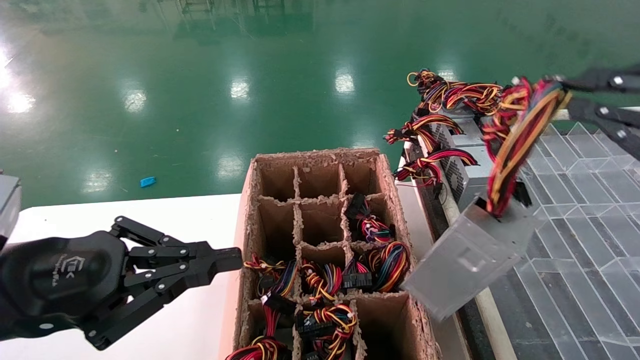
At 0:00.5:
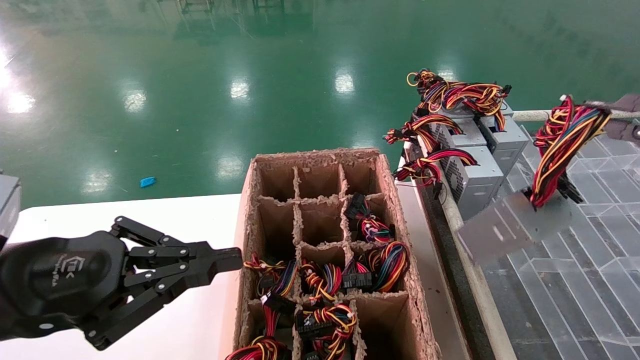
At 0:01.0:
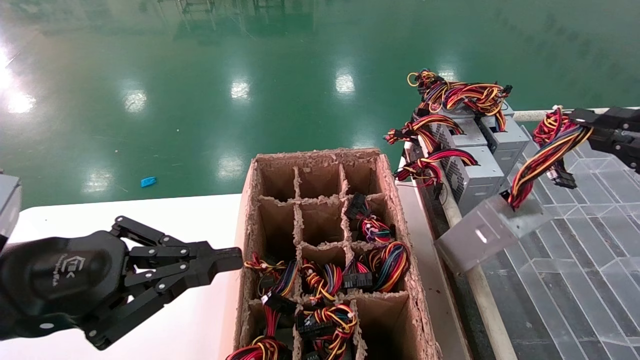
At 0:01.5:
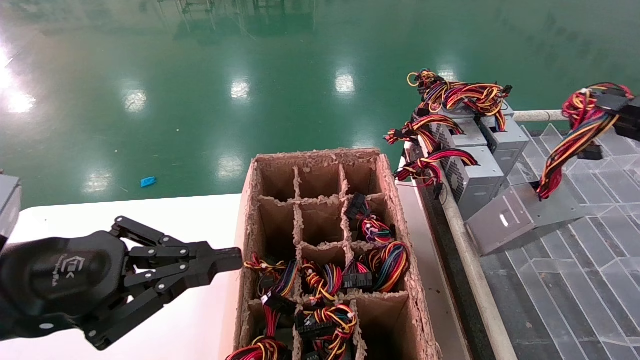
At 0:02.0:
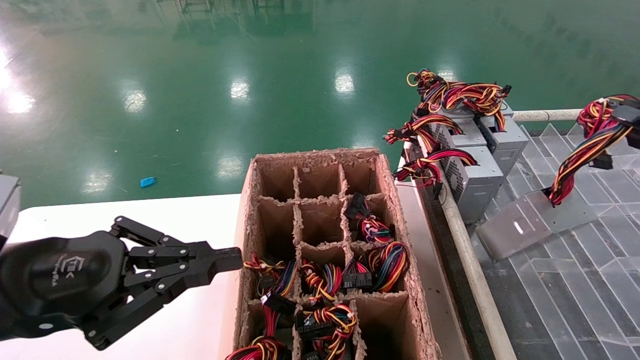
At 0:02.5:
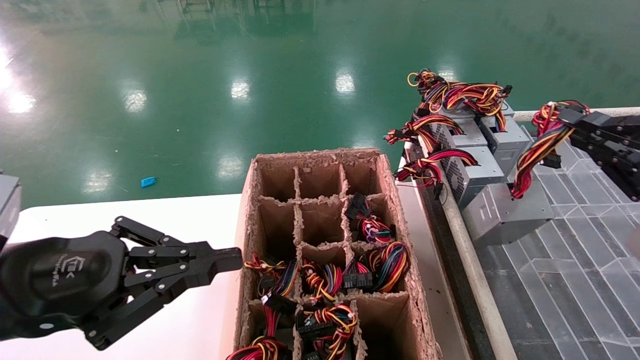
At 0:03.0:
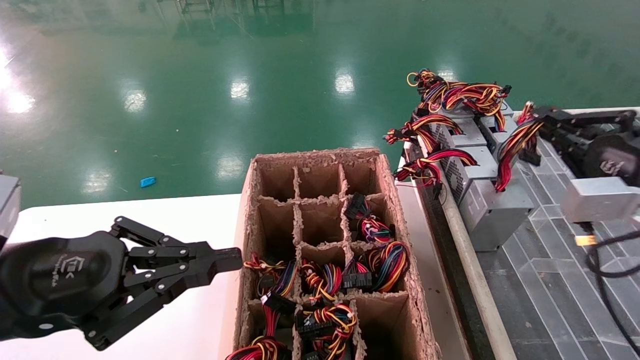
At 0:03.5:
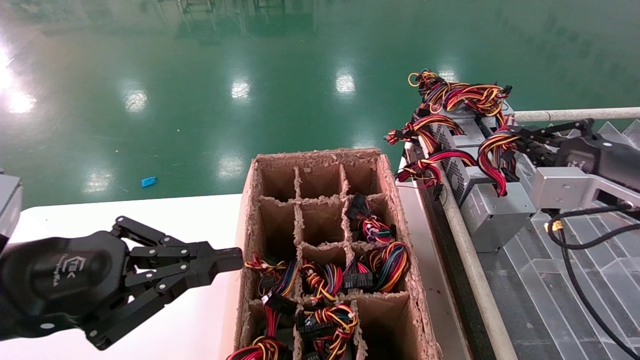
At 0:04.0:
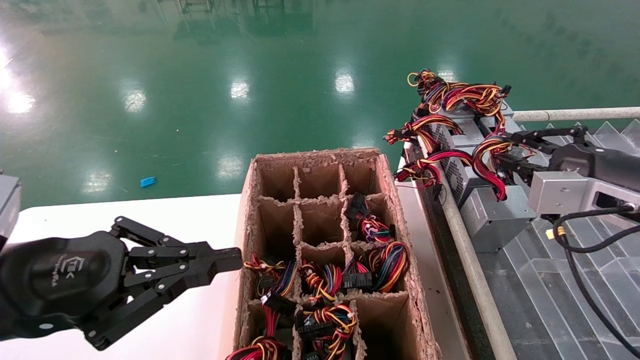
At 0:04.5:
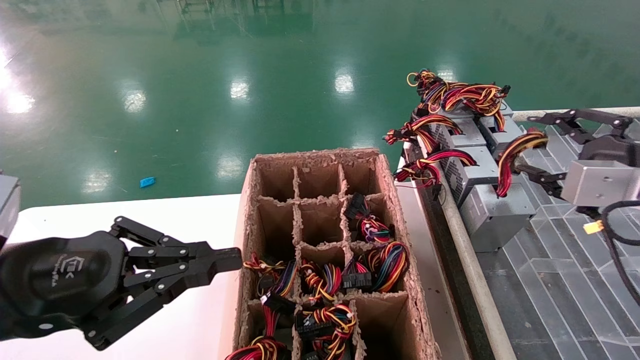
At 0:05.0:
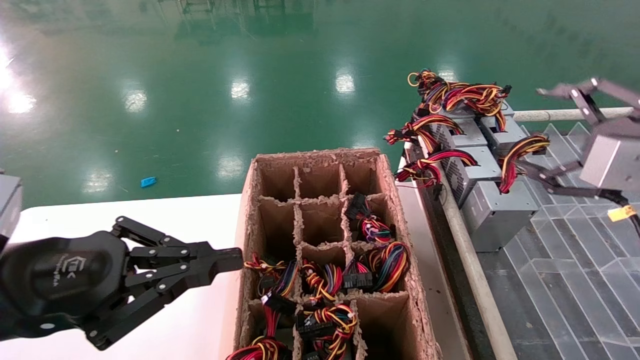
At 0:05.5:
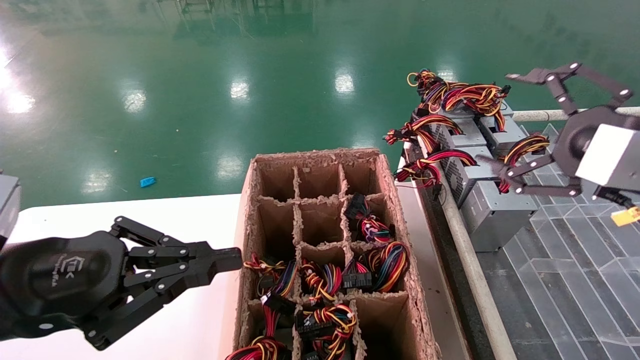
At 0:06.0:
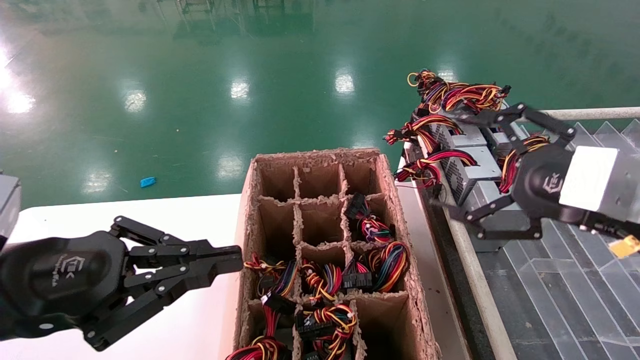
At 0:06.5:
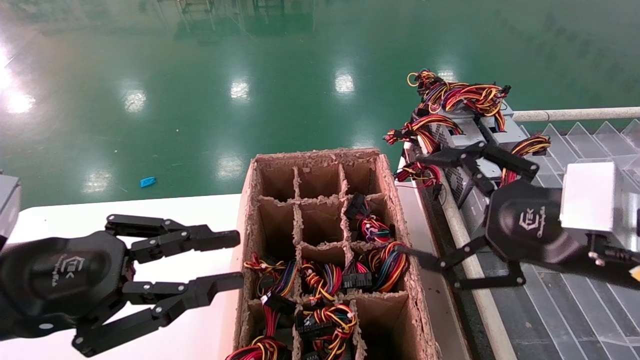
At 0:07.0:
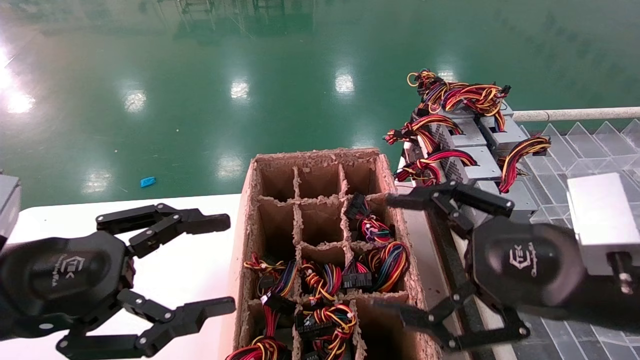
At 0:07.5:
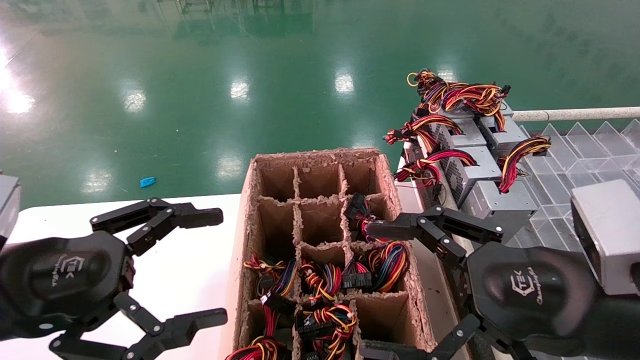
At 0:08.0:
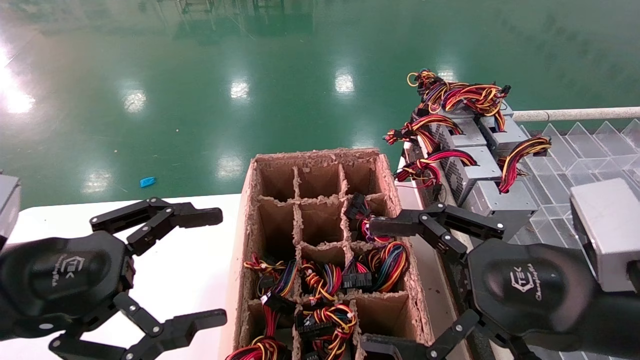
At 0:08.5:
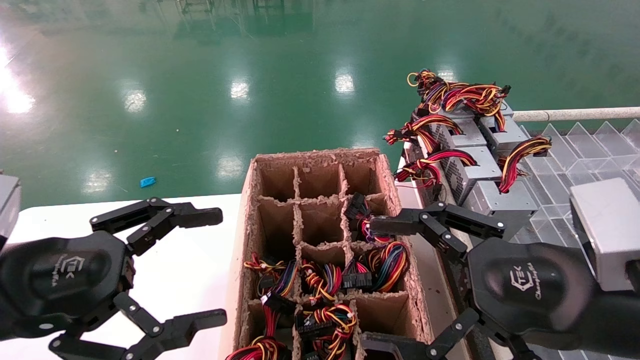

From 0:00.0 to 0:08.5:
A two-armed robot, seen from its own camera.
Step, from 0:00.0 to 0:04.5: Place the main unit power supply in the designated area.
From 0:00.0 to 0:02.0: The right gripper is displaced downward and to the right by roughly 10 cm.
From 0:02.0 to 0:04.0: The right gripper is displaced forward and to the left by approximately 15 cm.
From 0:04.0 to 0:06.5: The right gripper heads to the left and backward, covering approximately 15 cm, and opens.
From 0:06.5 to 0:08.5: The left gripper opens.

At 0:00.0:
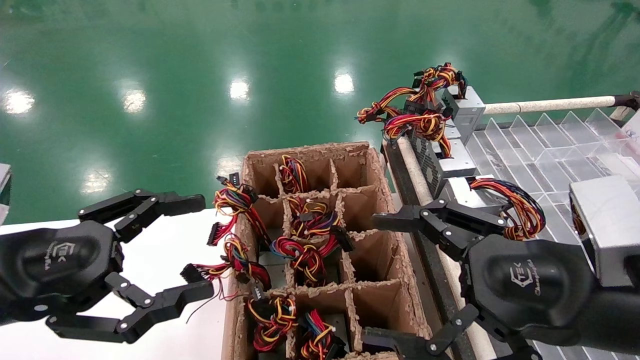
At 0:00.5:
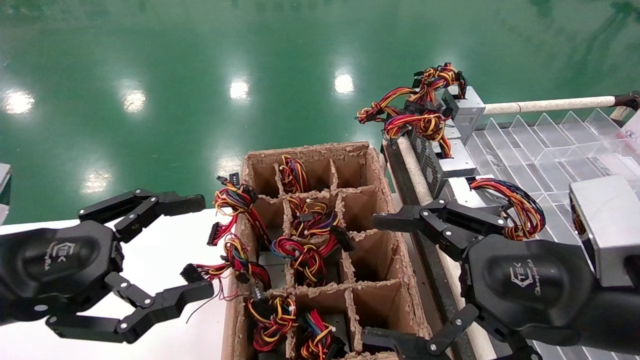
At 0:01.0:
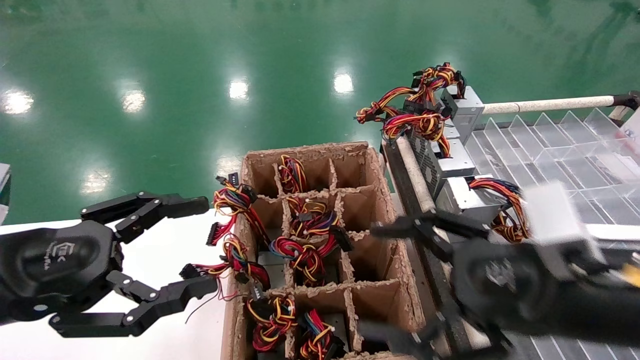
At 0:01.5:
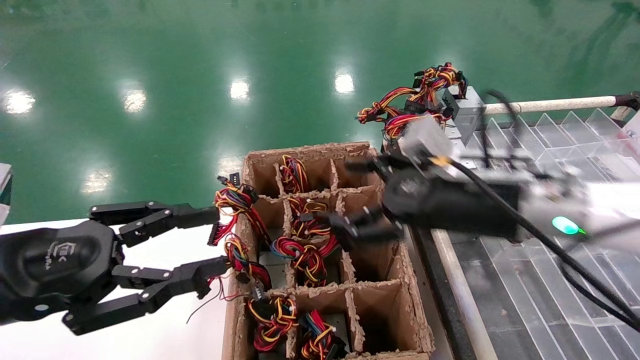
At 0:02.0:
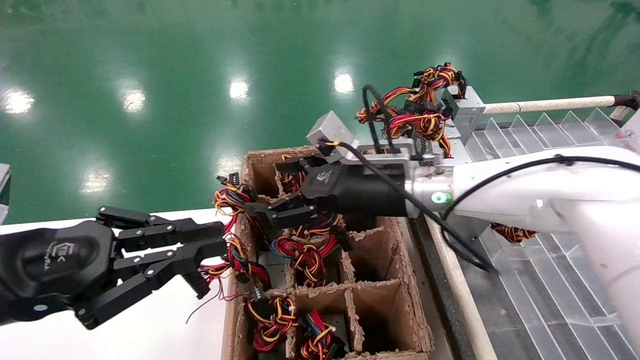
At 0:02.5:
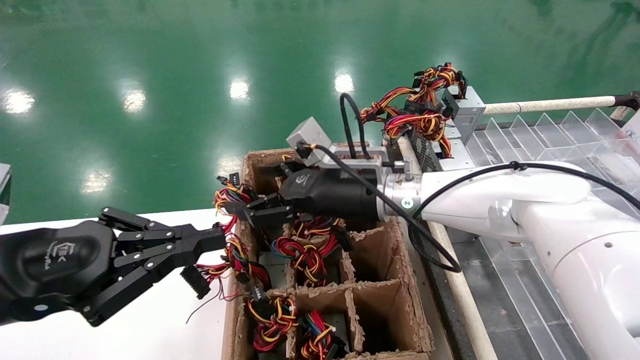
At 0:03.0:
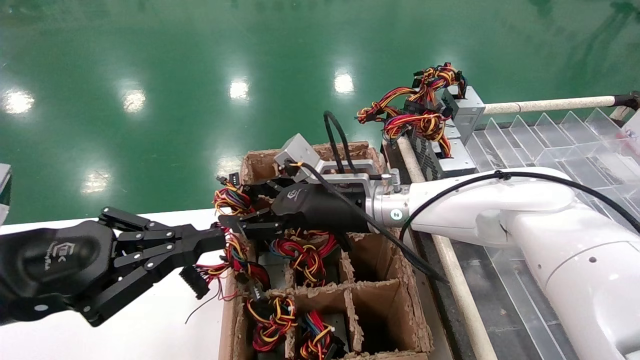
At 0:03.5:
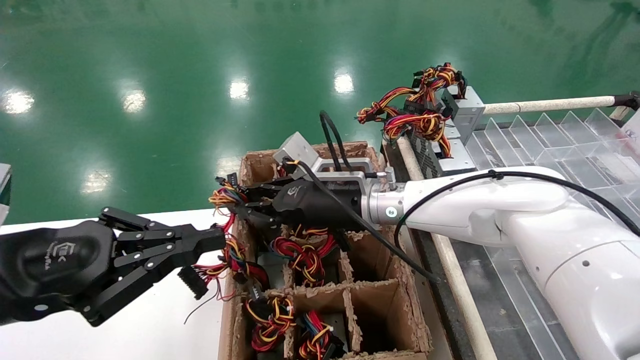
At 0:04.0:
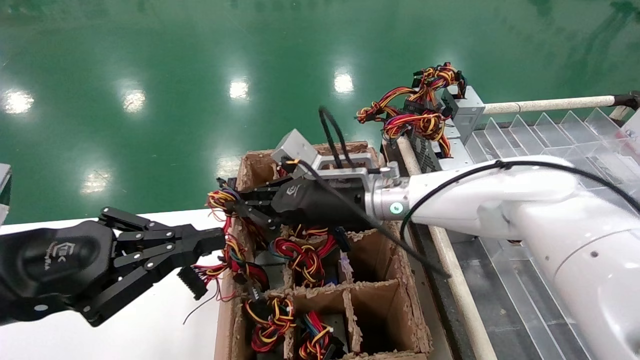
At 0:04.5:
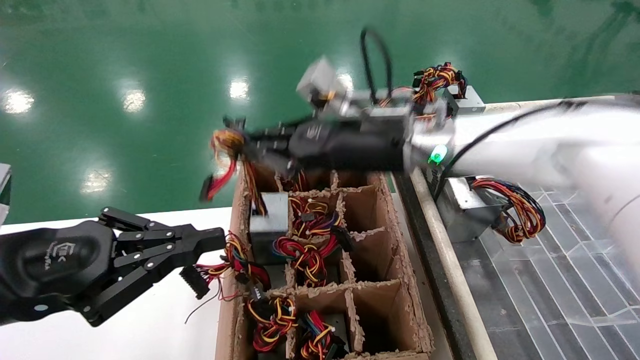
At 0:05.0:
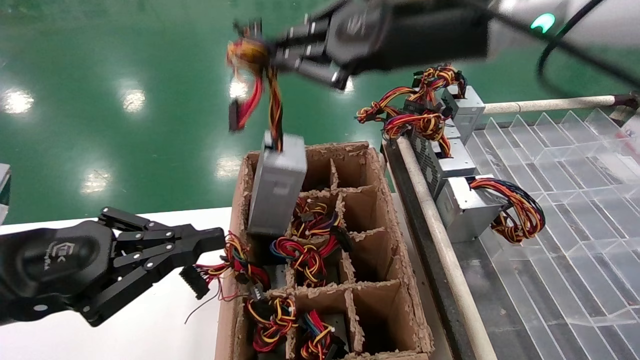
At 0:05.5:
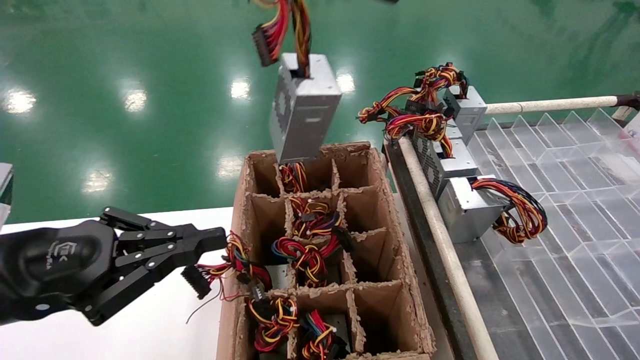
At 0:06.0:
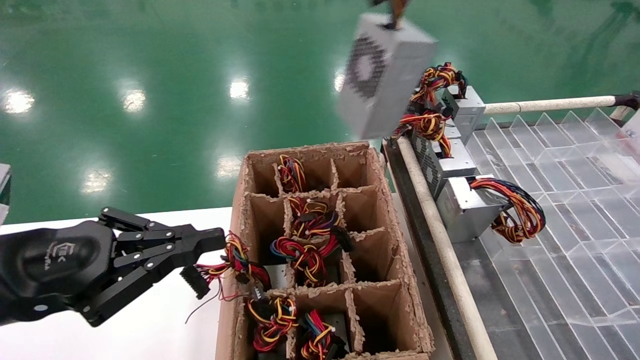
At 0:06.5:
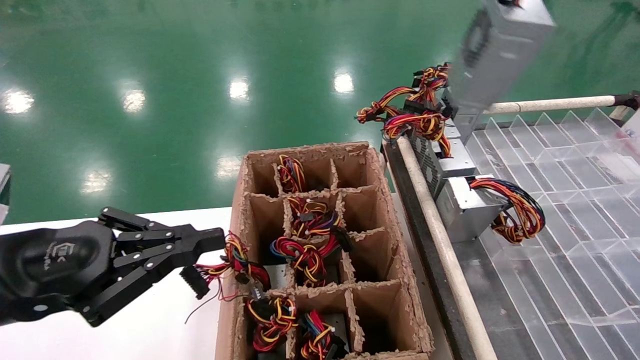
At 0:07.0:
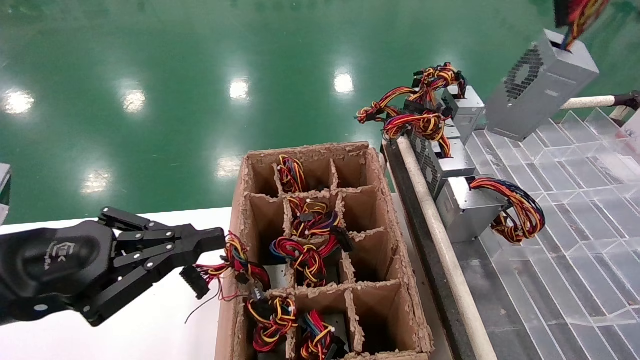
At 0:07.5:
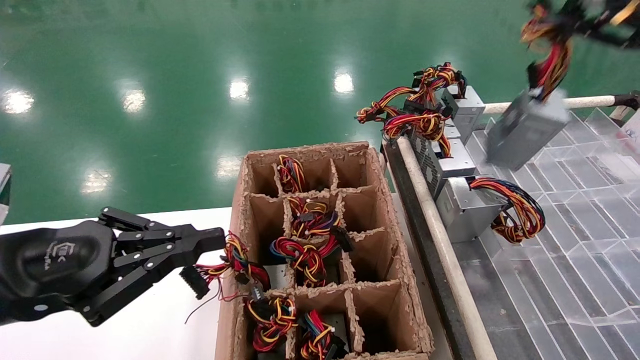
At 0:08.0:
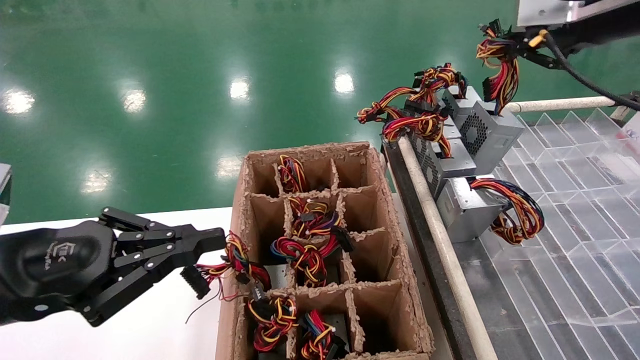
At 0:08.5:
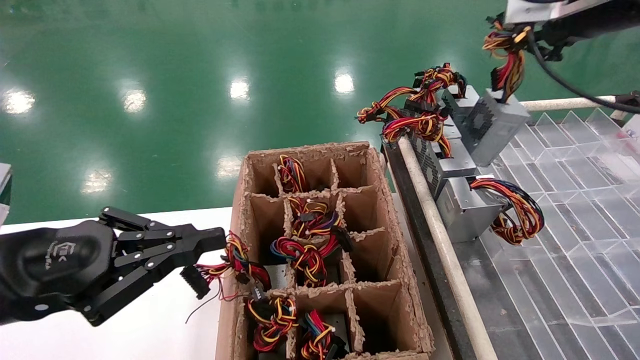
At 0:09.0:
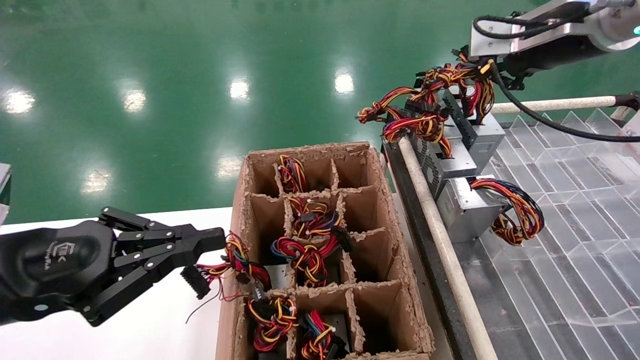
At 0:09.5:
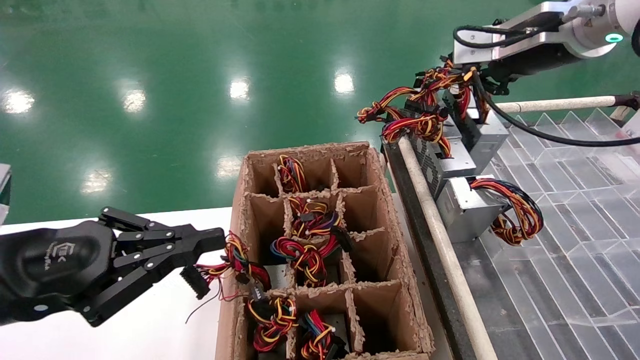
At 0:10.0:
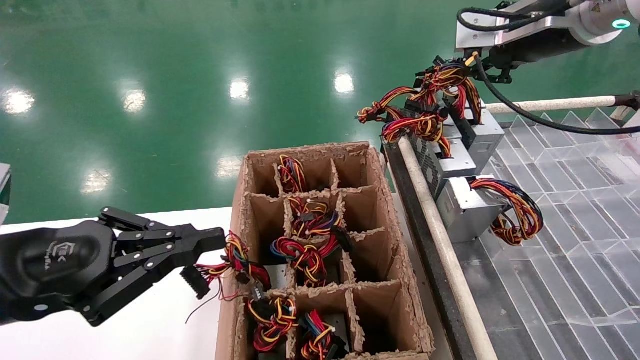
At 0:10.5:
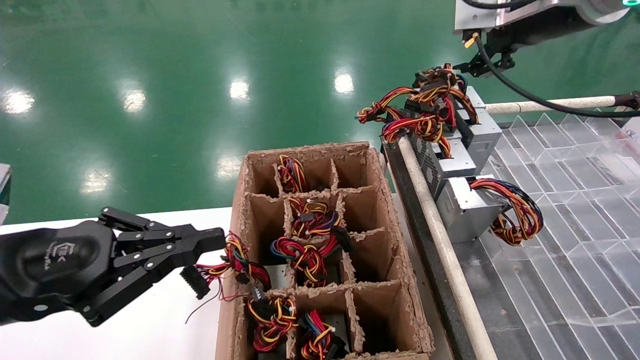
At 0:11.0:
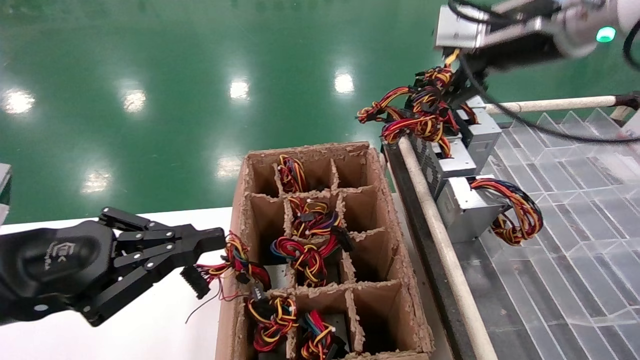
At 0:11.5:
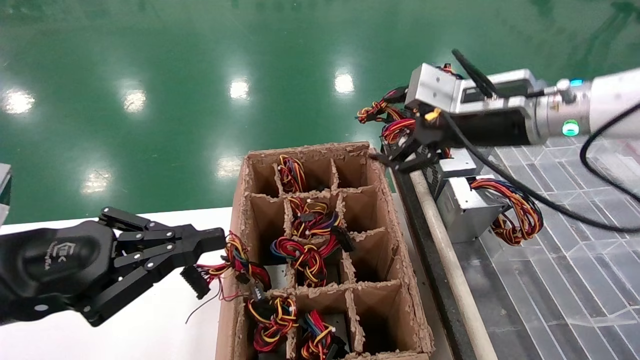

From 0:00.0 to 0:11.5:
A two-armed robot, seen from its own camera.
Step, from 0:01.5 to 0:03.5: Grab the main unit power supply from the containment box.
Step, from 0:04.0 to 0:10.5: Place the main unit power supply in the designated area.
From 0:00.0 to 0:02.0: The right gripper goes about 25 cm forward and to the left. The left gripper closes.
From 0:02.0 to 0:04.0: The right gripper travels to the left by some 5 cm, and closes up.
From 0:04.0 to 0:06.0: The right gripper is displaced upward, backward and to the right by approximately 40 cm.
From 0:06.0 to 0:07.5: The right gripper heads to the right, downward and forward, covering about 20 cm.
From 0:07.5 to 0:09.5: The right gripper shifts approximately 15 cm forward and to the left.
From 0:09.5 to 0:11.5: The right gripper shifts approximately 10 cm downward and to the left, and opens its fingers.
